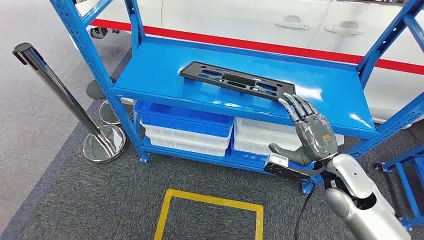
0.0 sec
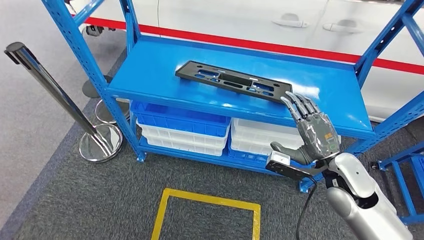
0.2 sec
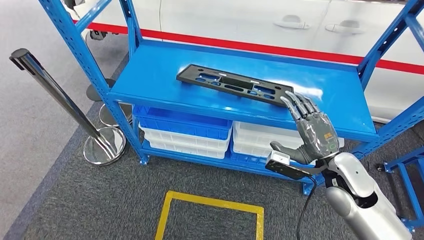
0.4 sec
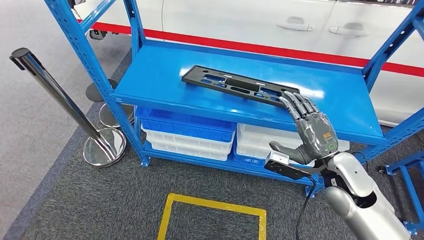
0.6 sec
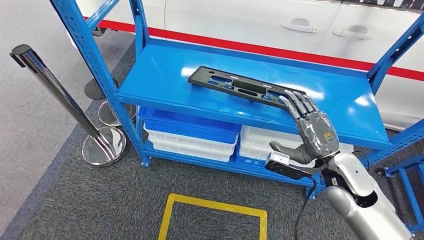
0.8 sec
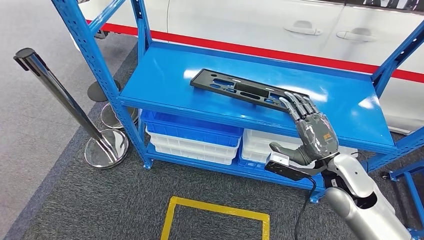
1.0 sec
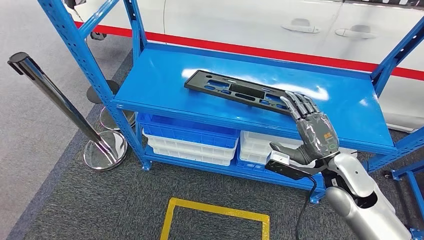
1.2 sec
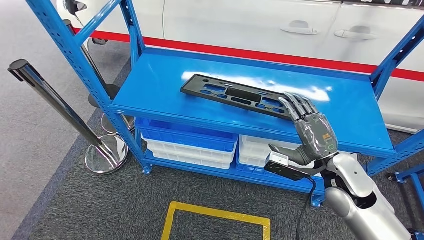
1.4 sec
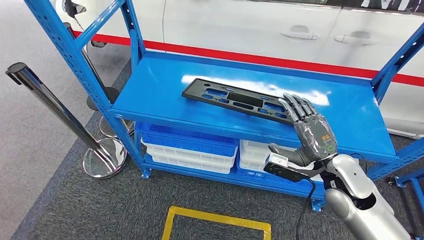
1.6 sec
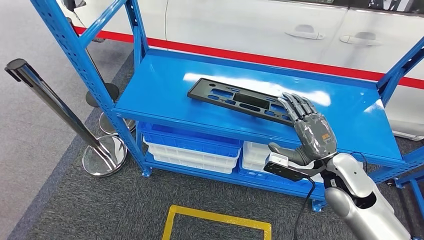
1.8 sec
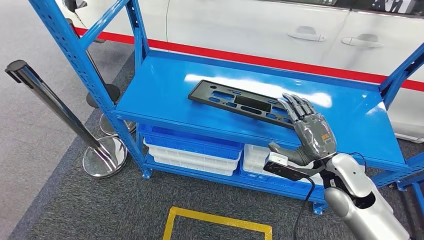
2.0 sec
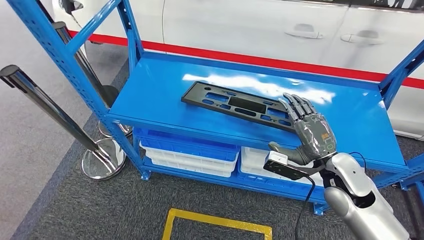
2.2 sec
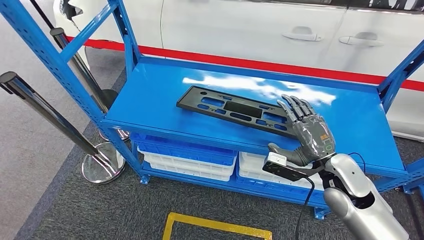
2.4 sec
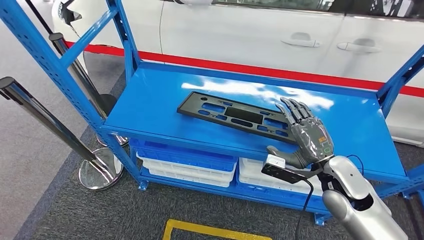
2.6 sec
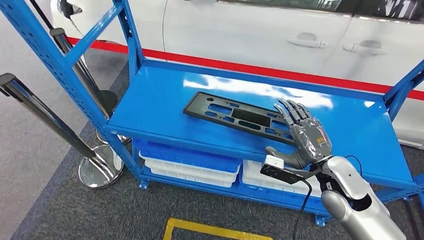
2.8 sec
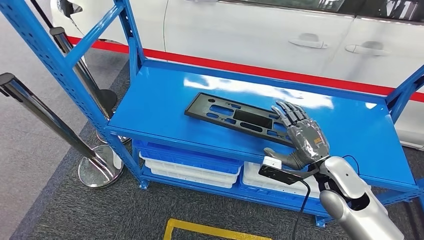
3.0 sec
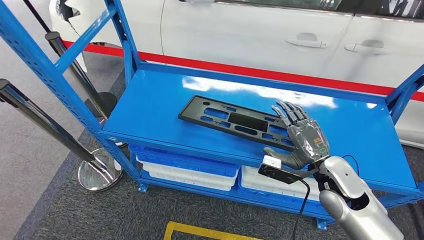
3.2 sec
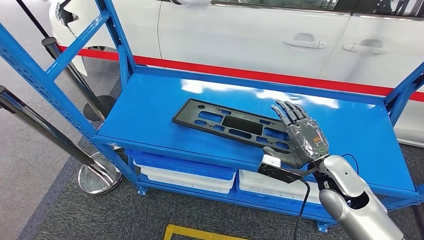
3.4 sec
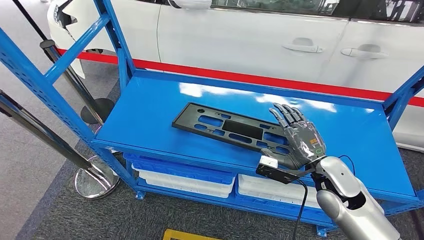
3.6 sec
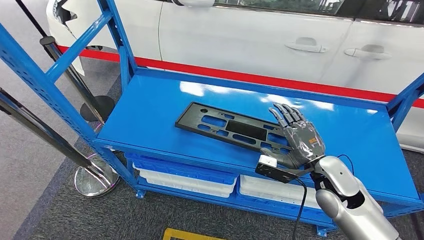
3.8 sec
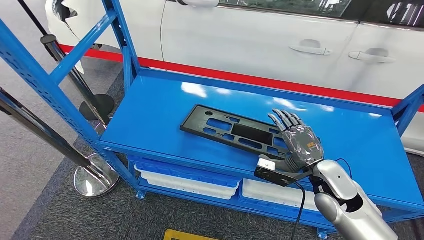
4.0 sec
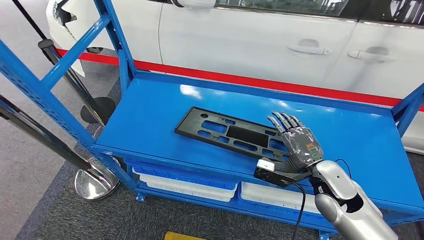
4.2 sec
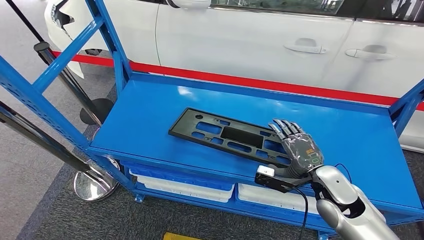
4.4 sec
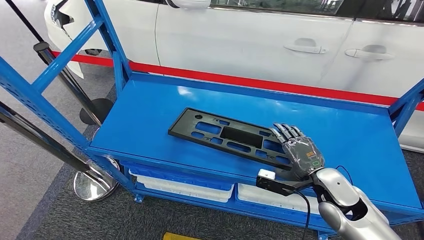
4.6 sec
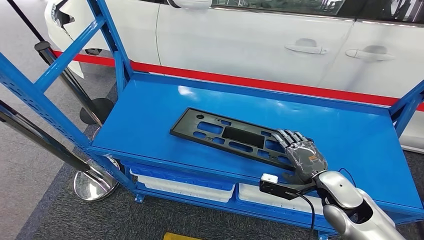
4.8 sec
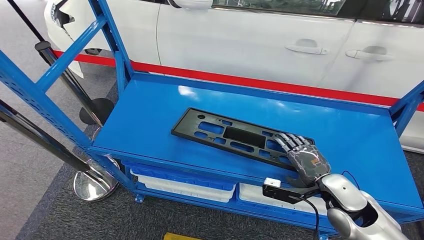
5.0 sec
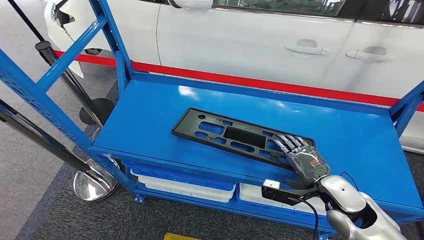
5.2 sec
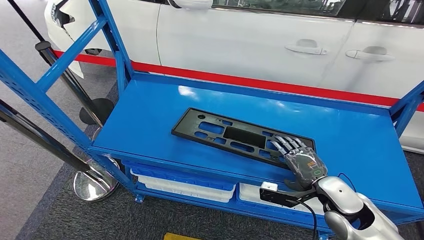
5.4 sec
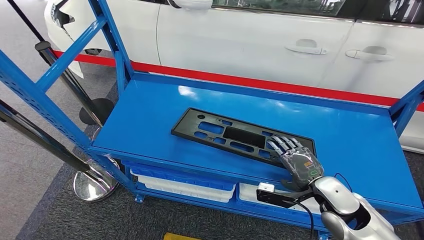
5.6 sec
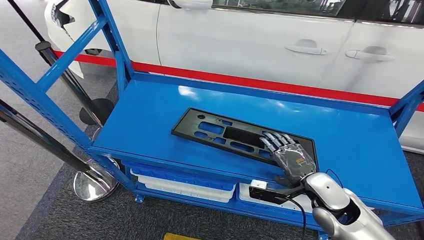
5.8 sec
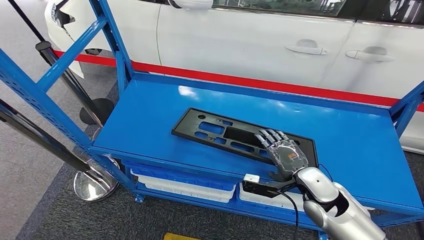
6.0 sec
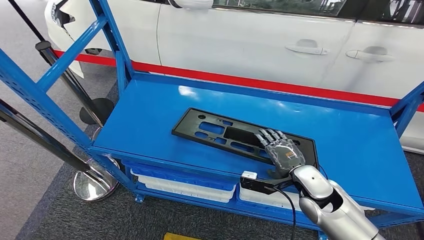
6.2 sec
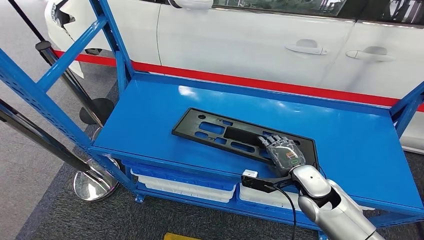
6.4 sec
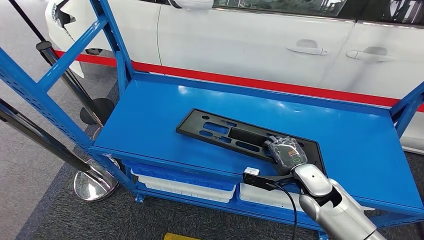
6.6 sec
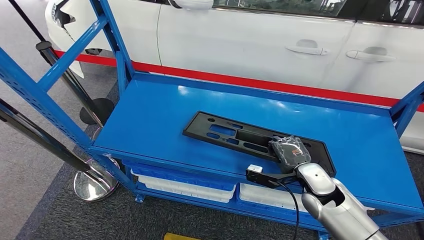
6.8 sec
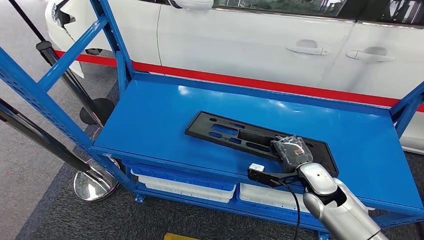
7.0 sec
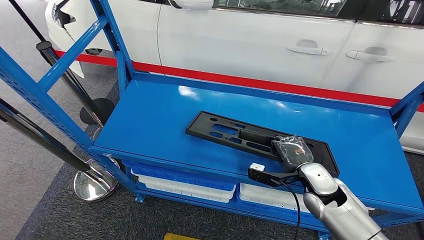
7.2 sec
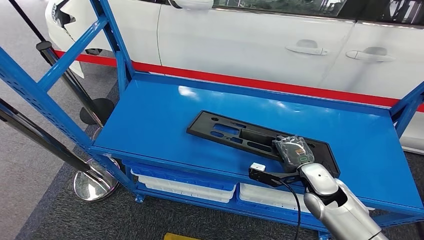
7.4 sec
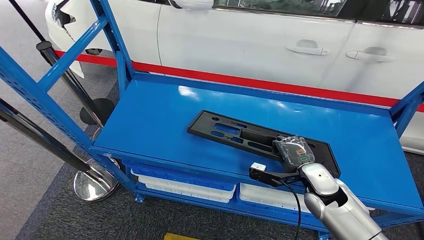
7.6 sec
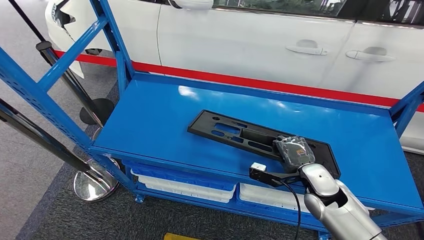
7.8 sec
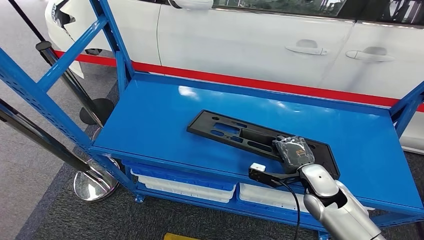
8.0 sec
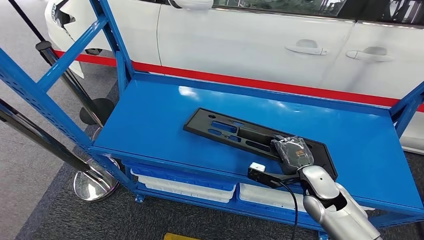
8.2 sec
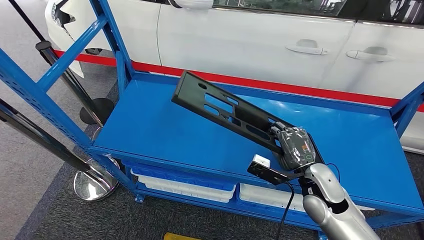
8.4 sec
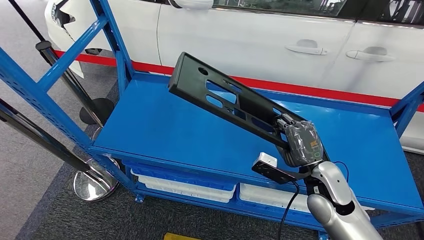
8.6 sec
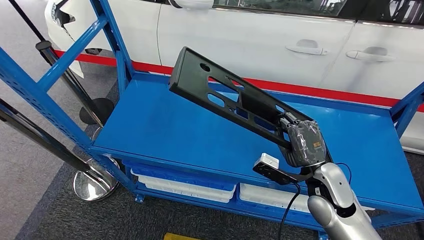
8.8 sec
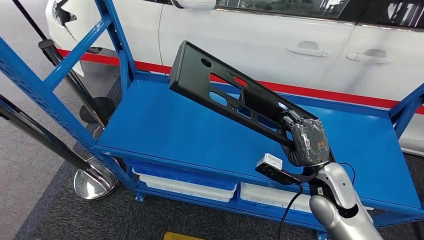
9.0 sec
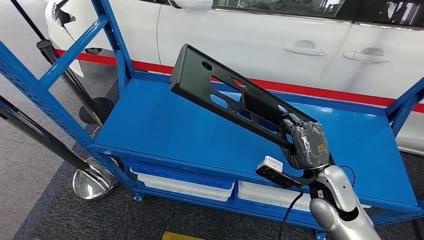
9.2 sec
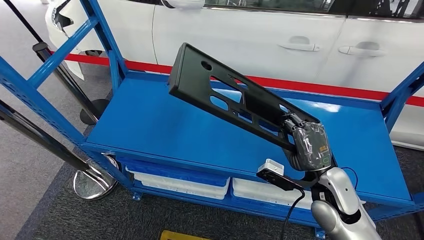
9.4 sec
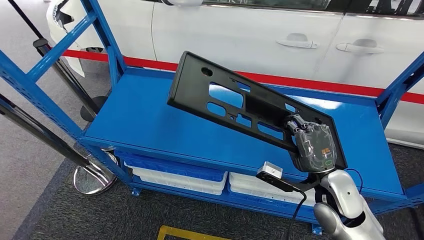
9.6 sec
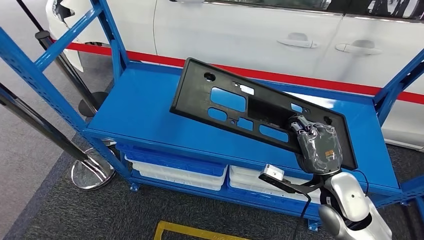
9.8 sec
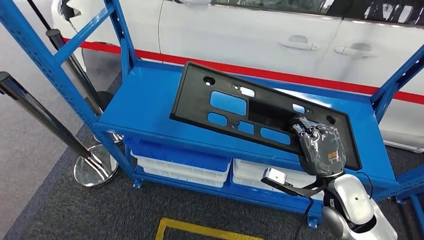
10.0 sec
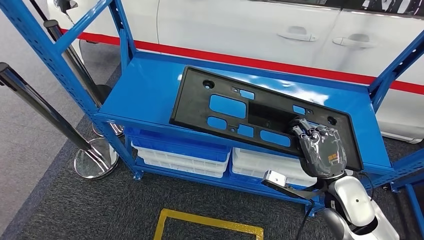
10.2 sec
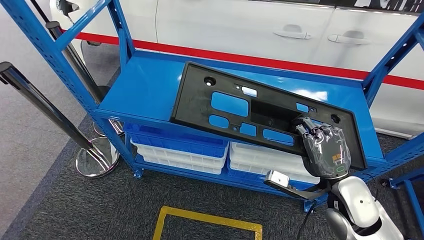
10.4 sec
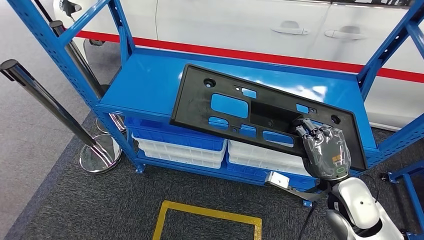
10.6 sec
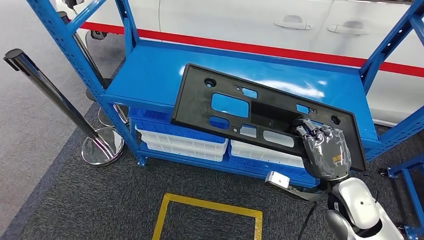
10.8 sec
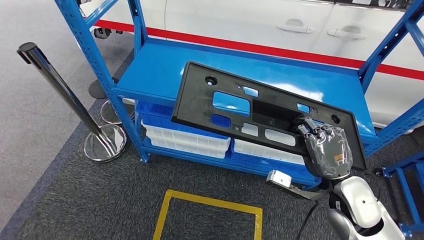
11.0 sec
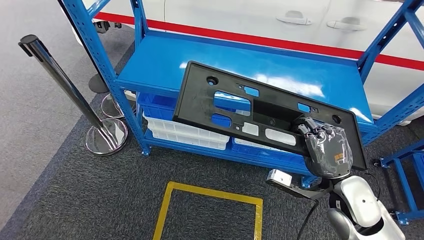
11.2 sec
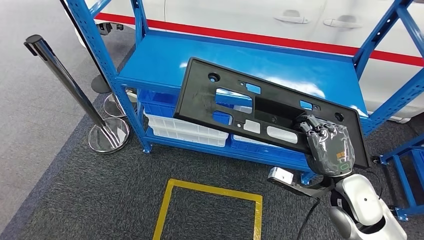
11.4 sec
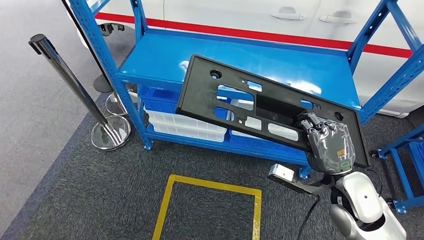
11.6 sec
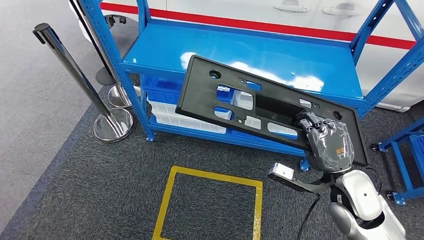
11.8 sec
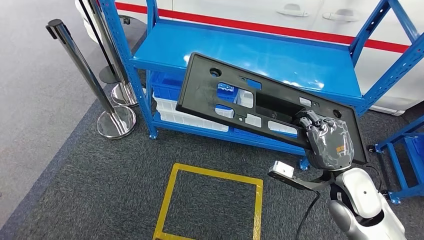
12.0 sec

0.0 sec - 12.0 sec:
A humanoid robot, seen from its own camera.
Step, 0.0 sec - 10.4 sec: Pick up the large material from the shelf.
4.4 sec - 7.6 sec: The hands make only small movements.

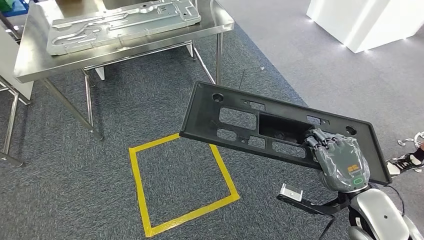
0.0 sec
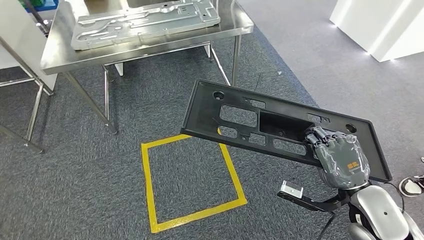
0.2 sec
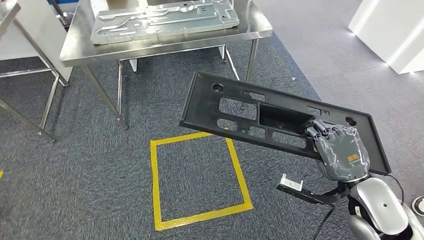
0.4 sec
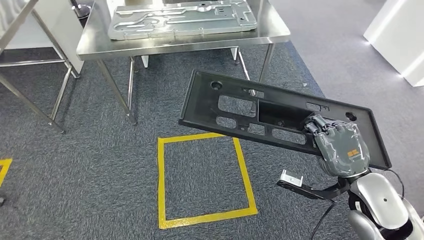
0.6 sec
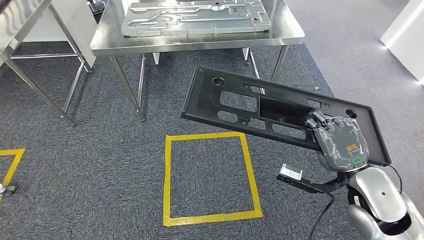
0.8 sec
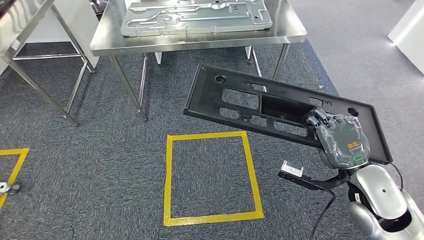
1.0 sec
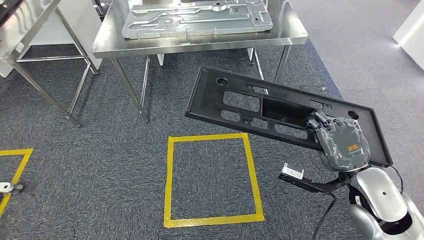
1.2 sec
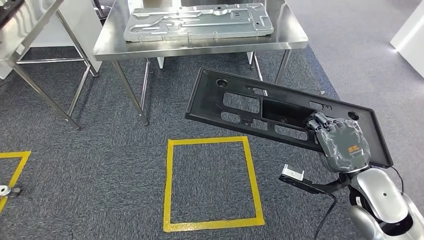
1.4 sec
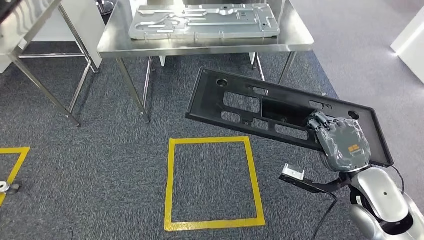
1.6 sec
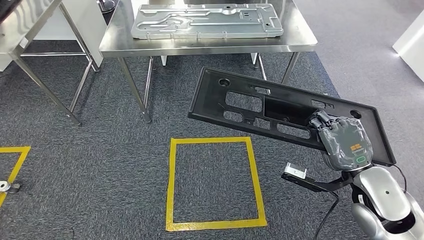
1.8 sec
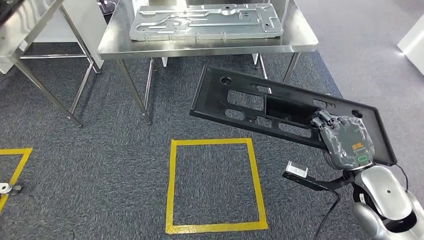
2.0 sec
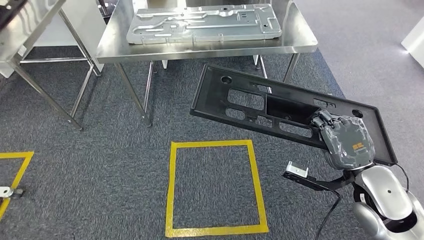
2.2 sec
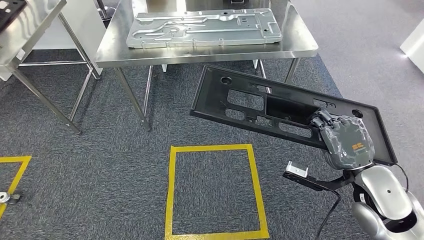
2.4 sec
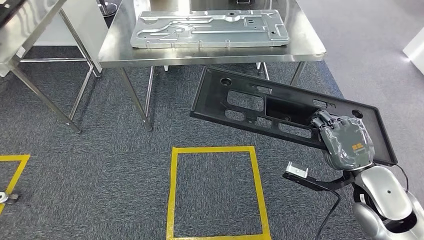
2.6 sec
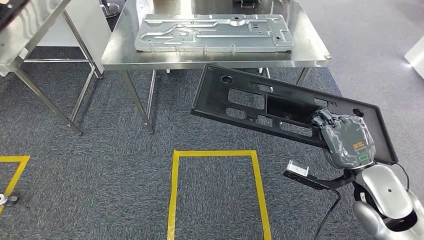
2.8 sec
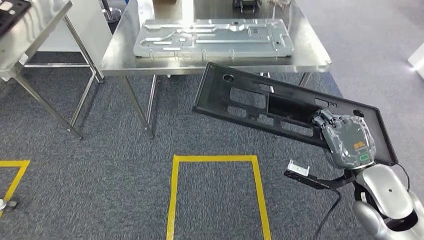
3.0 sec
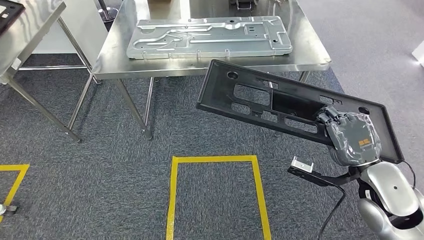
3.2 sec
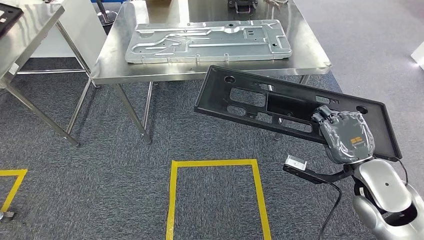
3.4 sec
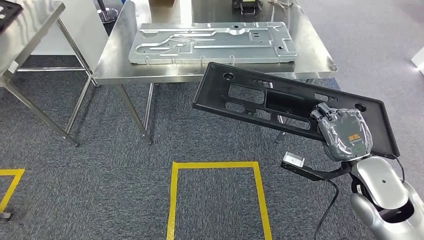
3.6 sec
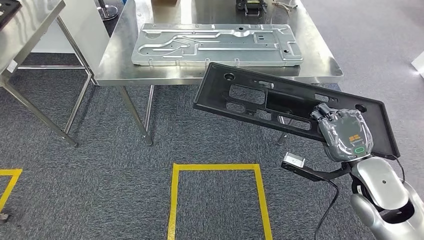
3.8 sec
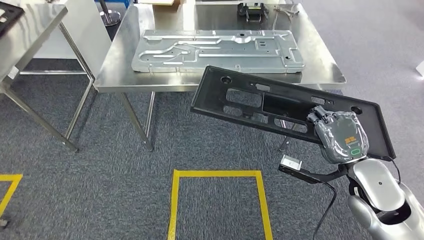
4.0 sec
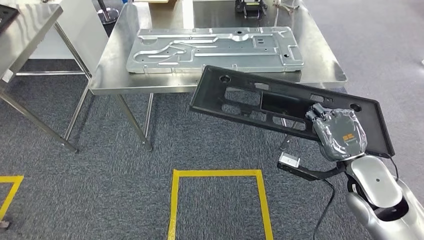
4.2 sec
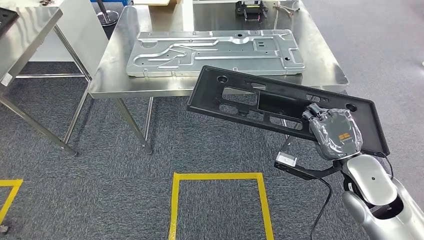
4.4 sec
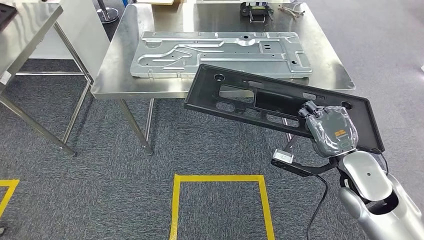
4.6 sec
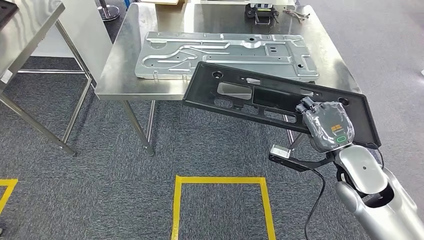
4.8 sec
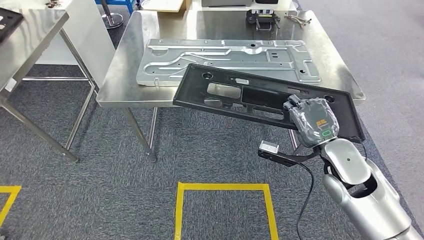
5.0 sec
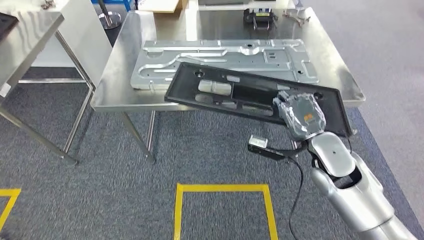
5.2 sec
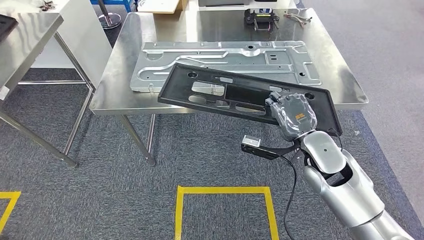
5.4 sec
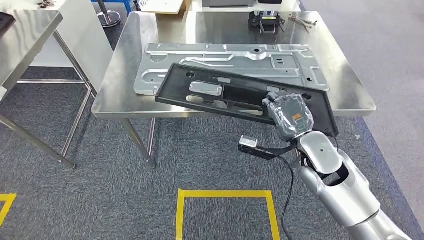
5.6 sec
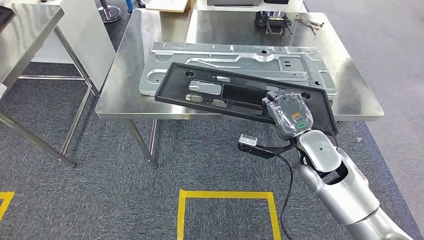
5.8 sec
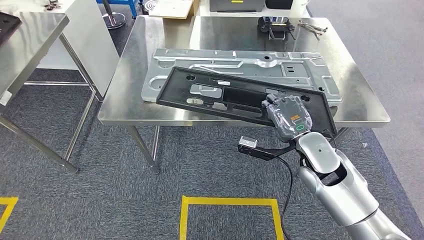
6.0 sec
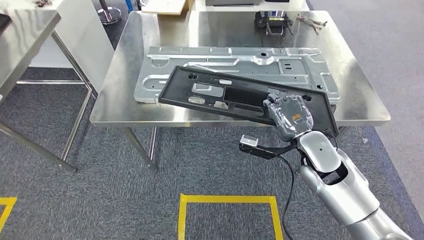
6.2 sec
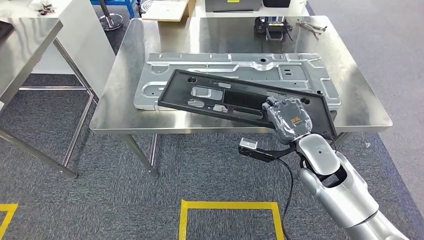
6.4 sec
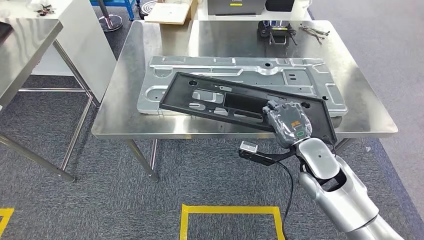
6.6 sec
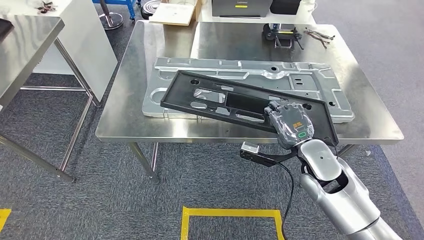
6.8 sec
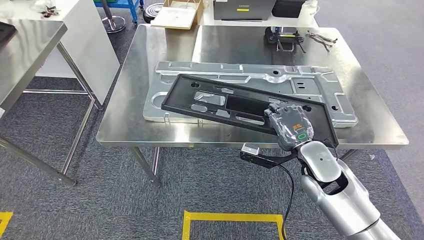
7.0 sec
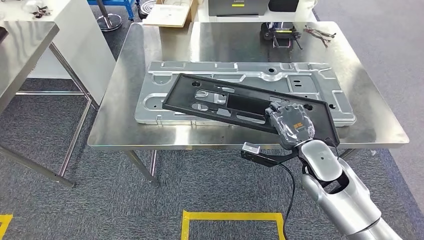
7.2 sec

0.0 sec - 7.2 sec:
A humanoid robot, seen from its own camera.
Step, 0.0 sec - 4.4 sec: Move the large material to the workbench.
